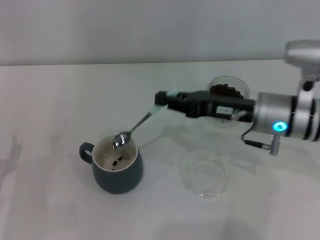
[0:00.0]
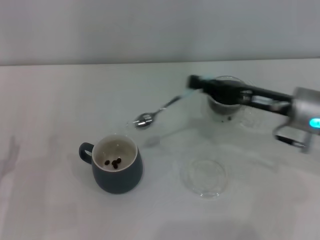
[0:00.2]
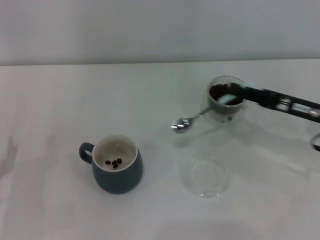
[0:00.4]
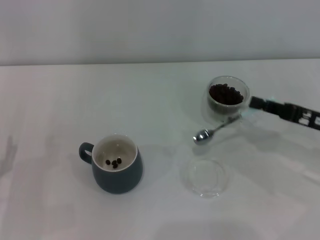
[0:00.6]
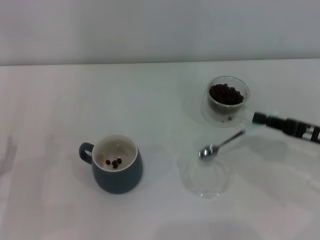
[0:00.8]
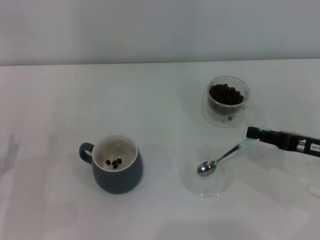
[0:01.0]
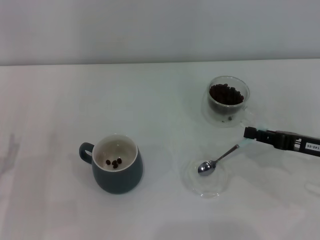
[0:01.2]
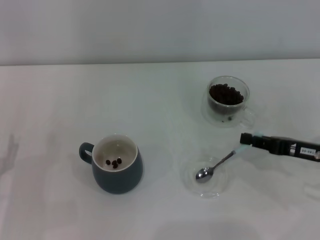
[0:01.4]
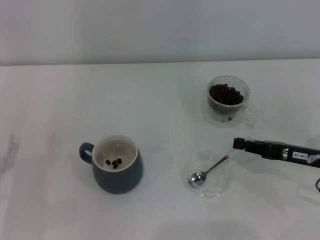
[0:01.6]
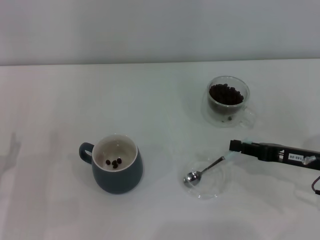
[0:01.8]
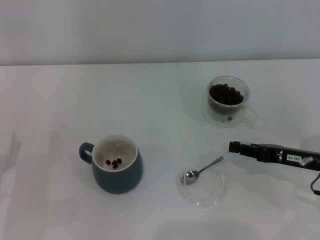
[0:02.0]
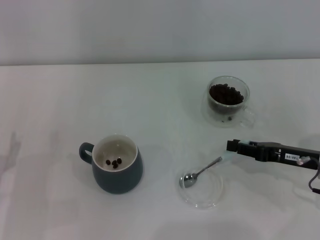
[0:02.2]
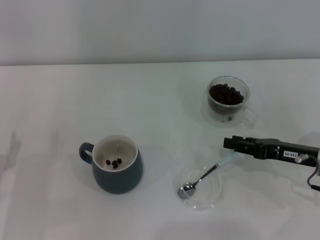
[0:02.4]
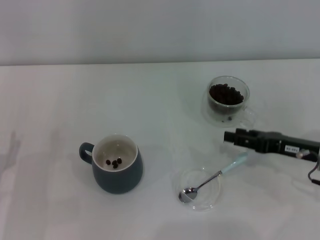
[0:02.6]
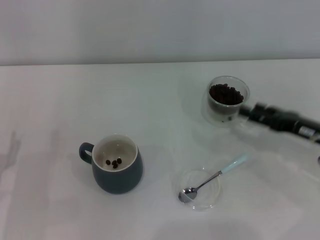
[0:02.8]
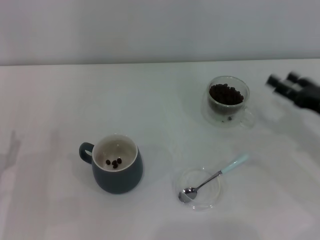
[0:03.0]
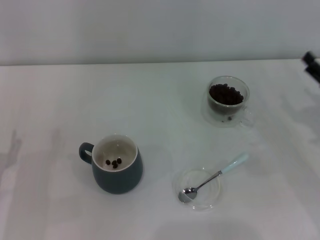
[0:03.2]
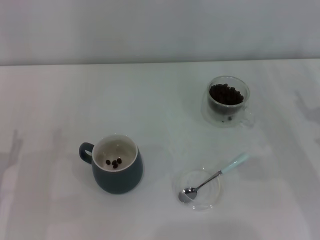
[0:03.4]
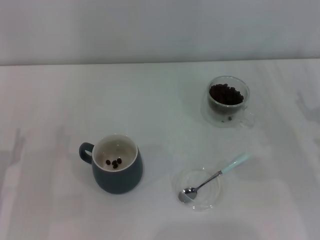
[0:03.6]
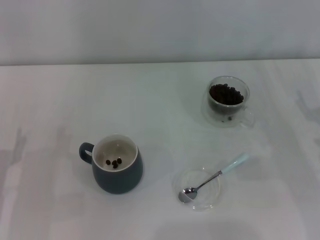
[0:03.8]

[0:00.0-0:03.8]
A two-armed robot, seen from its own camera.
Task of the whole recording: Use a blue spoon to take out the coffee beans from the glass and pour them into the gray cup.
Step, 0:00.2 to 0:02.4: Place the spoon back in its original place with the right gripper.
0:00.0 to 0:01.2: The right gripper travels to the right and backward by some 15 cm.
0:01.2 to 0:02.6: The right gripper opens.
0:02.6 to 0:03.8: The right gripper opens its fingers.
